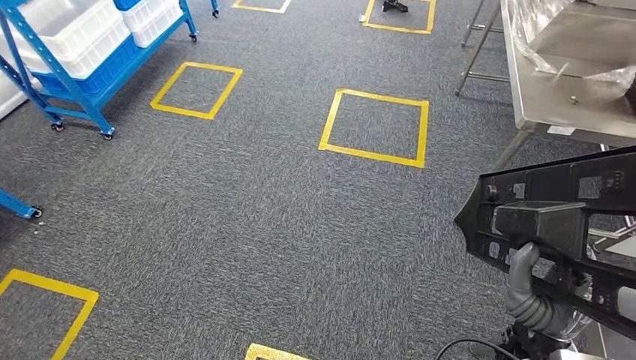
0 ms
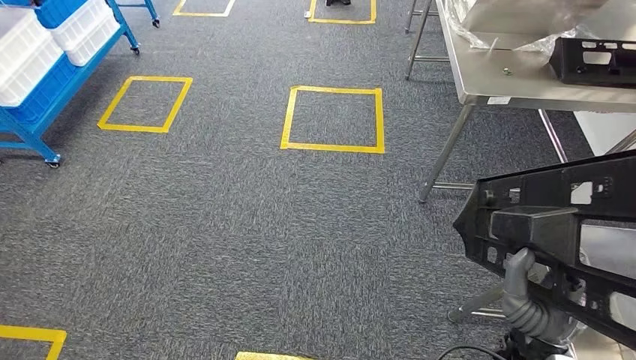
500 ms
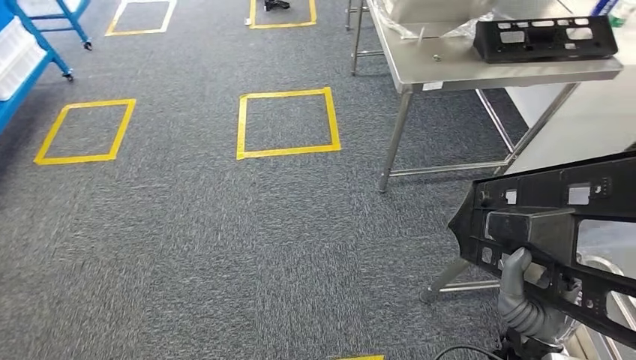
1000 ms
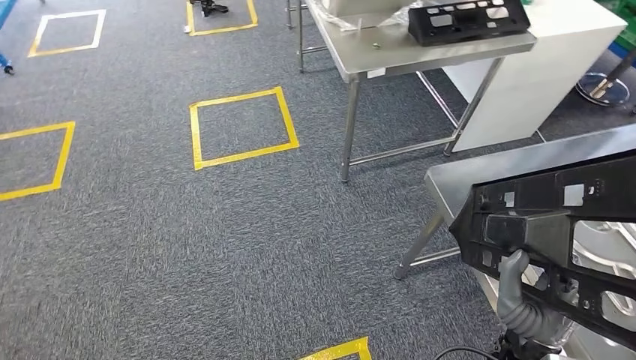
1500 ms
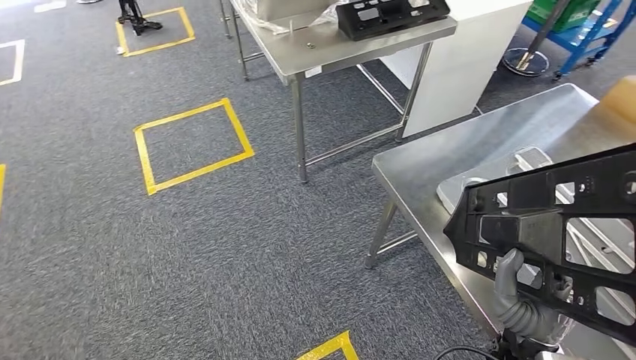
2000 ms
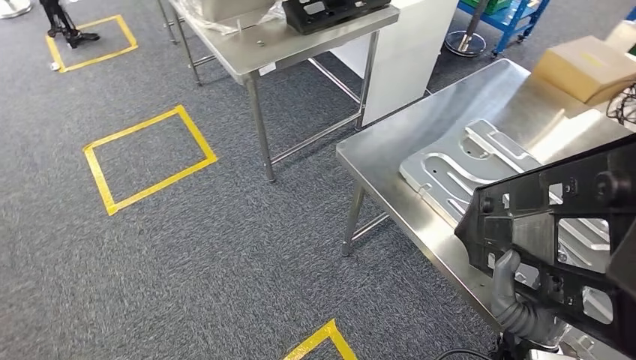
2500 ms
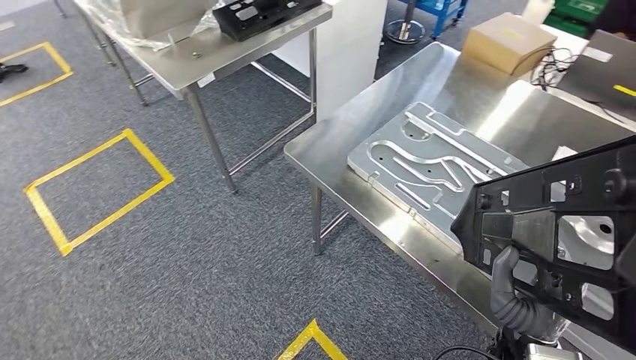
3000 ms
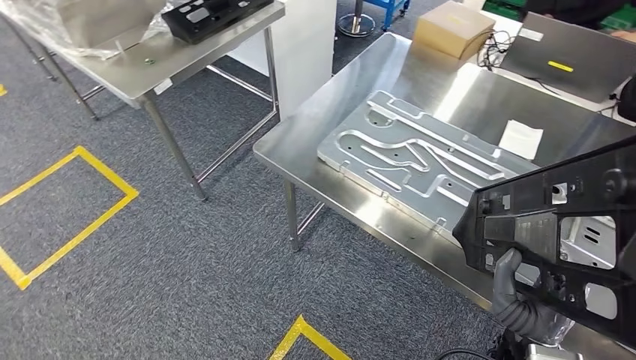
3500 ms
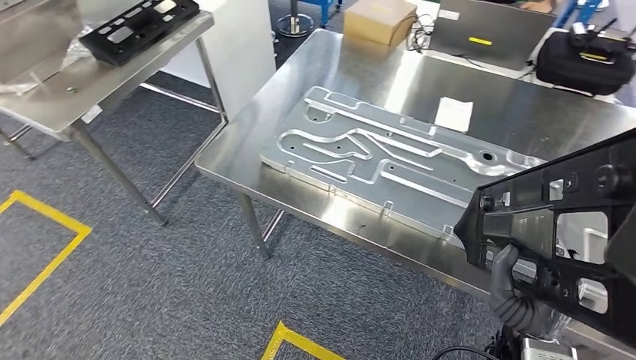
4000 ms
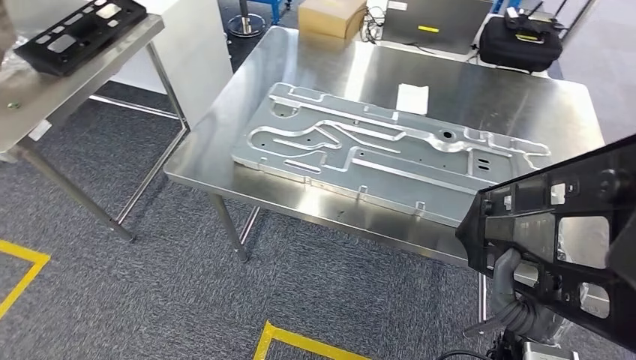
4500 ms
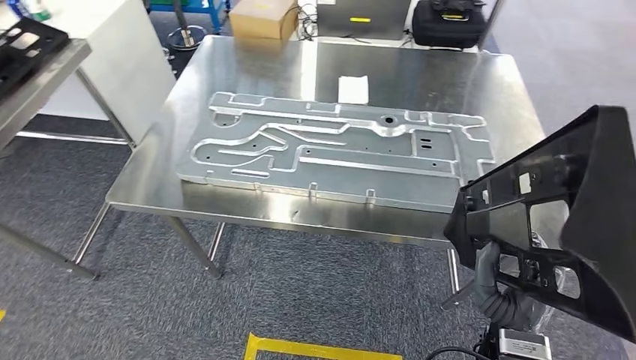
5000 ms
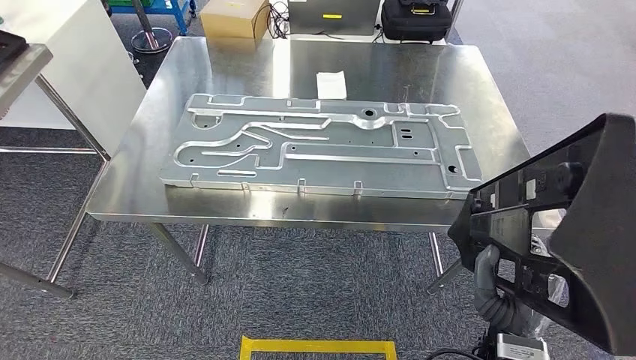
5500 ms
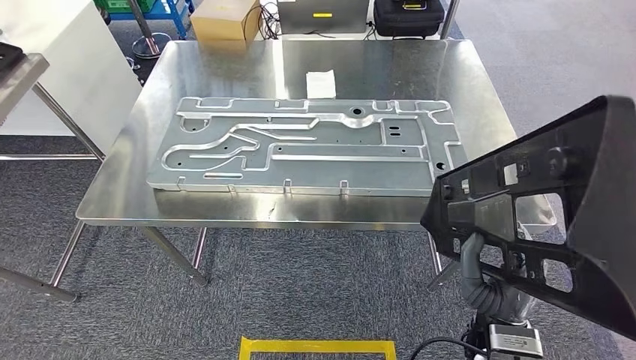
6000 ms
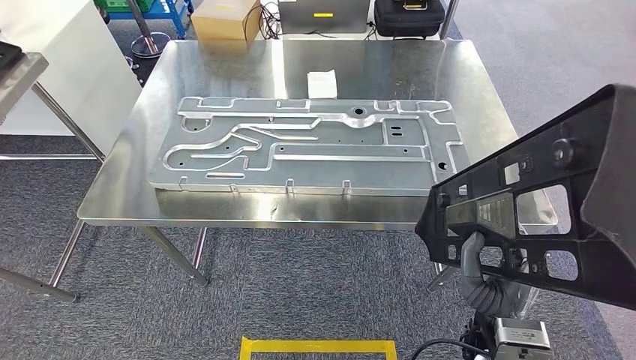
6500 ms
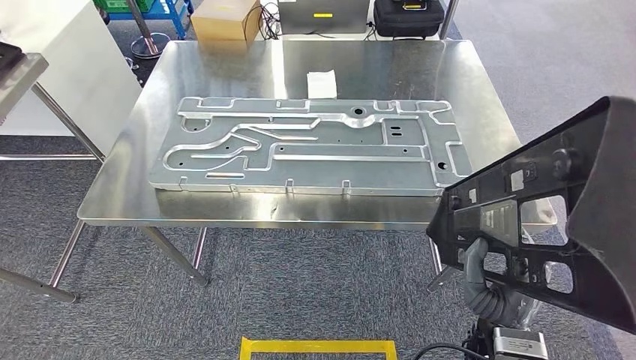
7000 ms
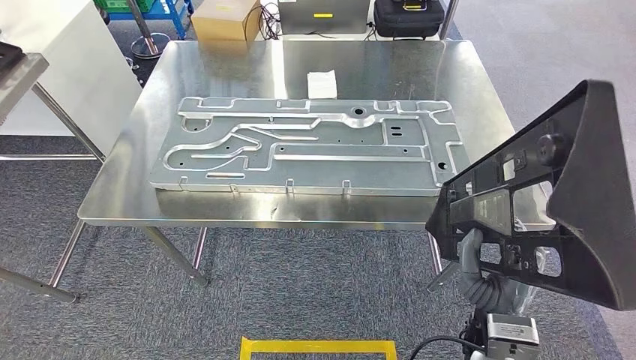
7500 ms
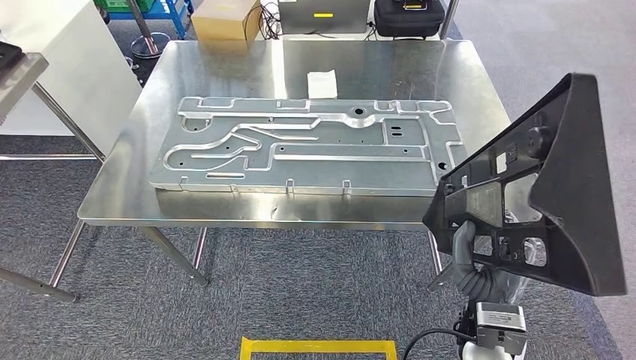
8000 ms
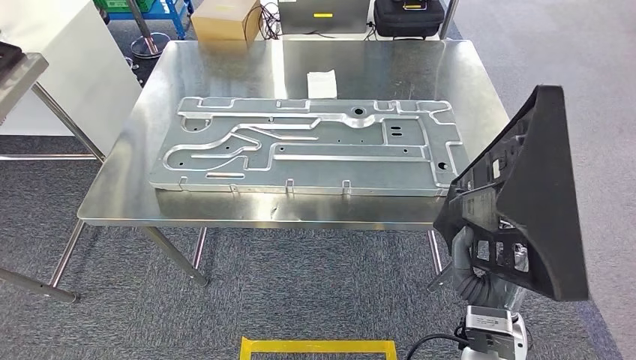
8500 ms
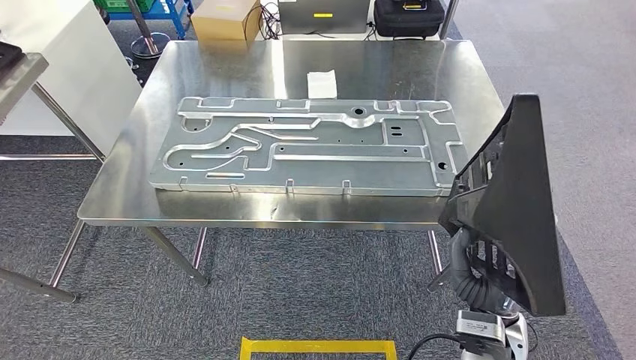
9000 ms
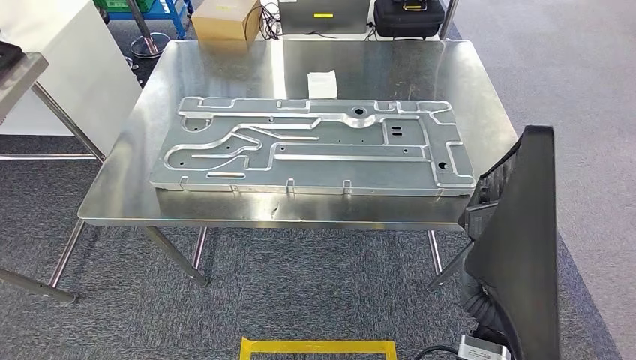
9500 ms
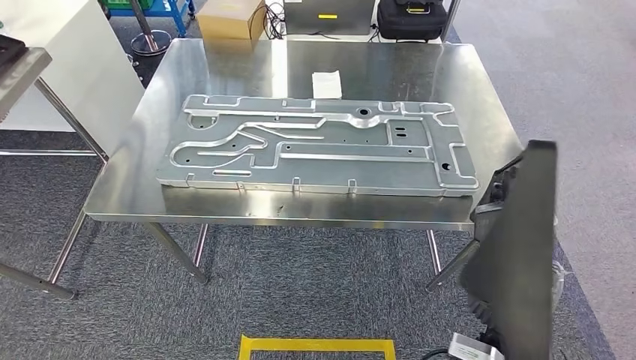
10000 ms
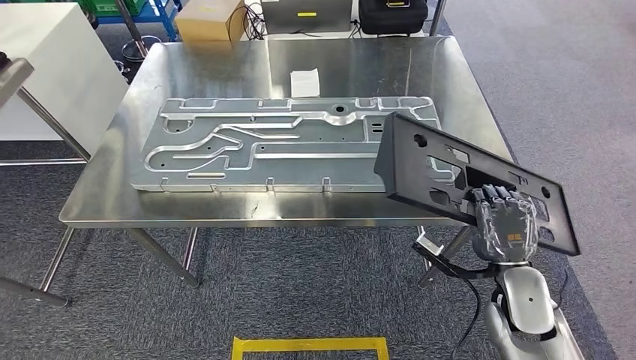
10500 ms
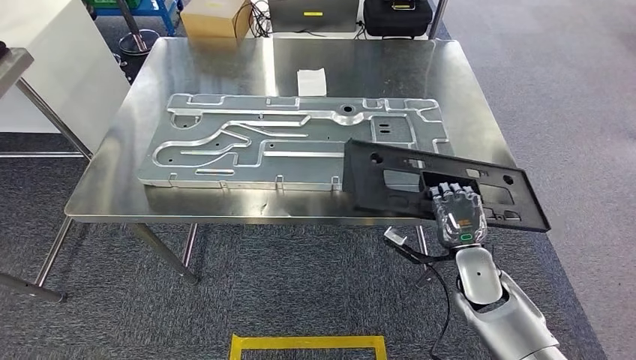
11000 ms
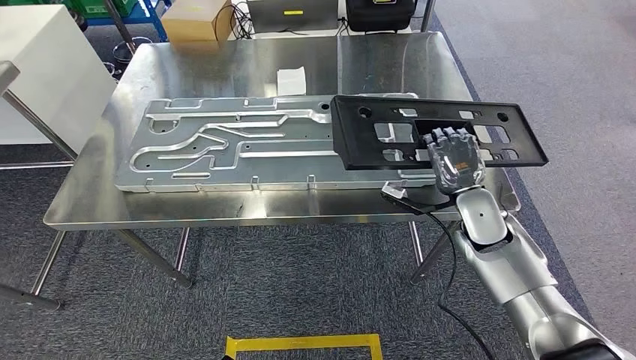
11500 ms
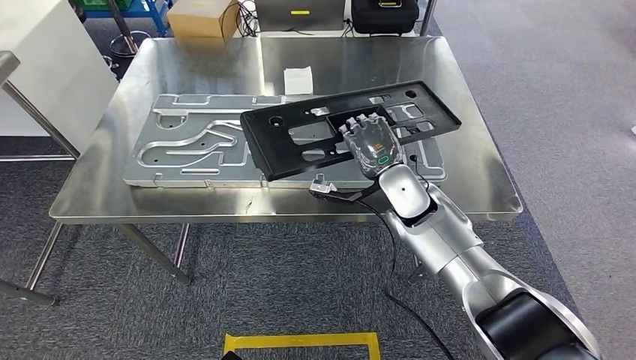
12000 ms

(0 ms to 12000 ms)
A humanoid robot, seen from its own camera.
Step, 0 ms - 6000 ms: Move the large material to the workbench.
6000 ms - 8000 ms: The hands stay close to where they were, moving slightly.

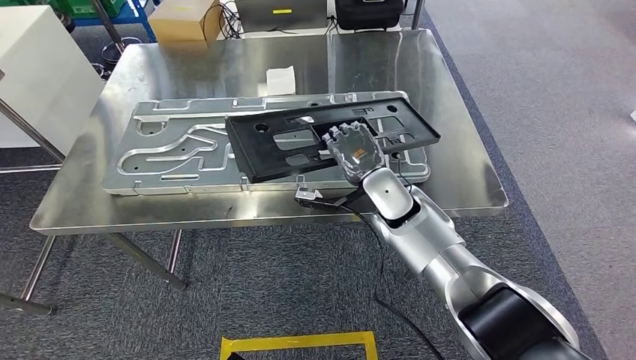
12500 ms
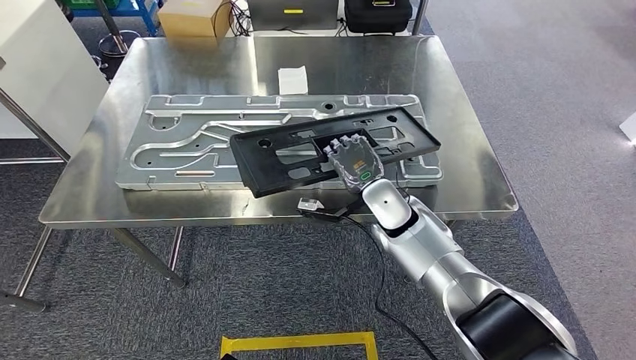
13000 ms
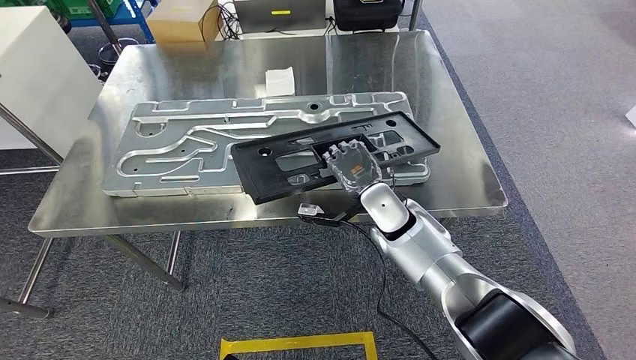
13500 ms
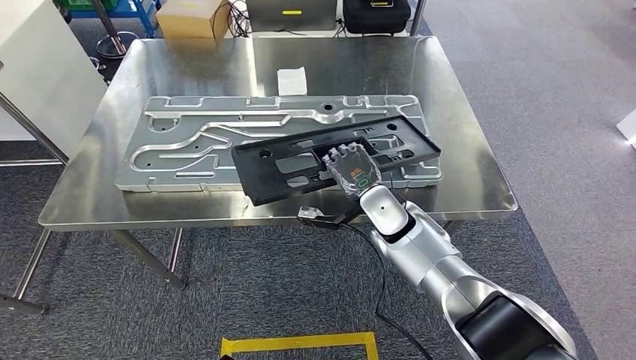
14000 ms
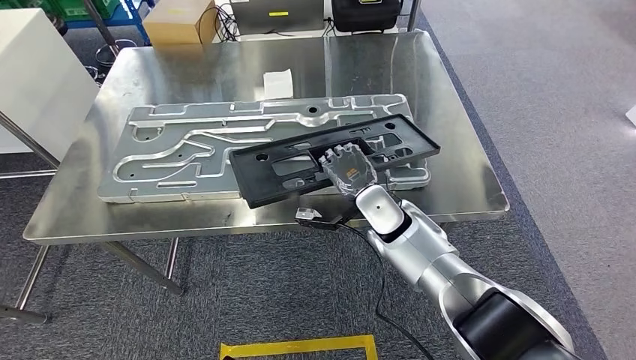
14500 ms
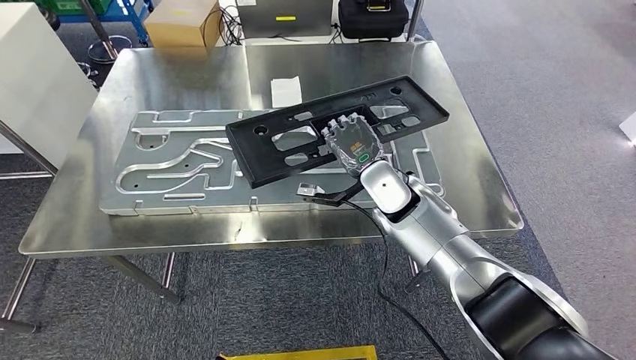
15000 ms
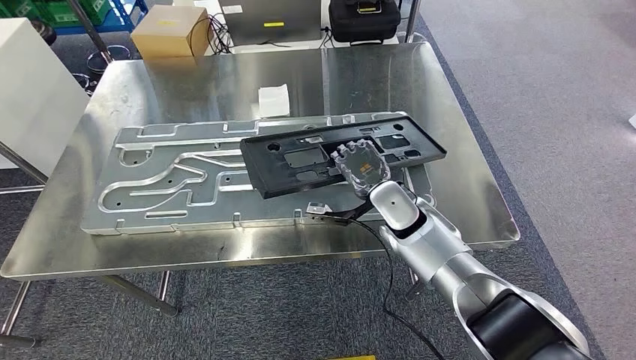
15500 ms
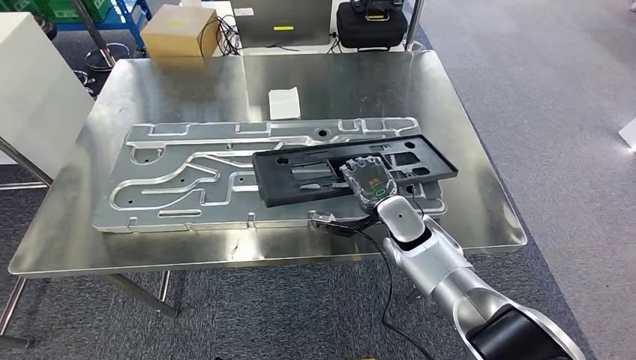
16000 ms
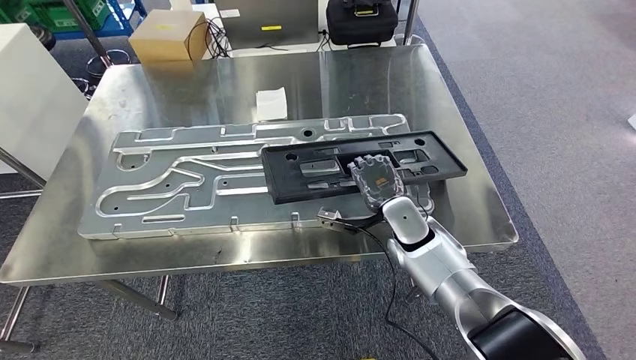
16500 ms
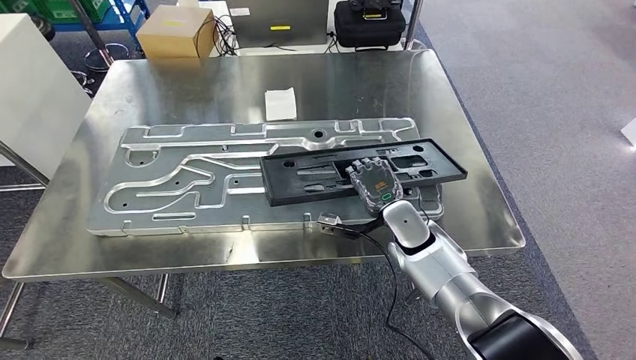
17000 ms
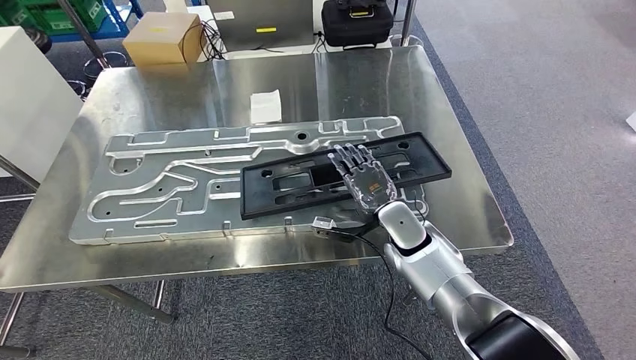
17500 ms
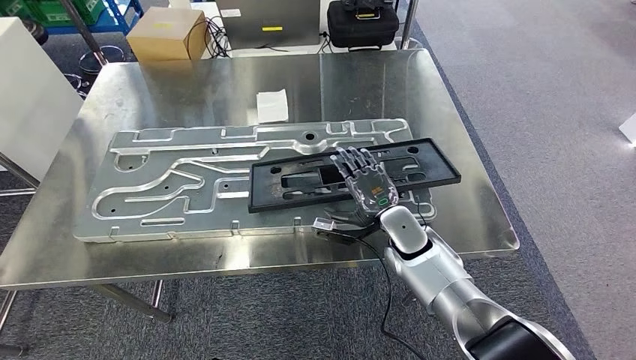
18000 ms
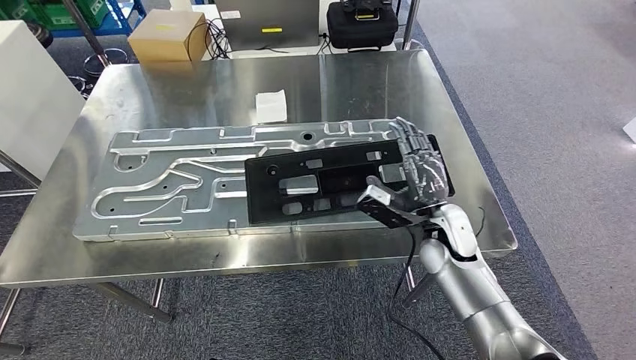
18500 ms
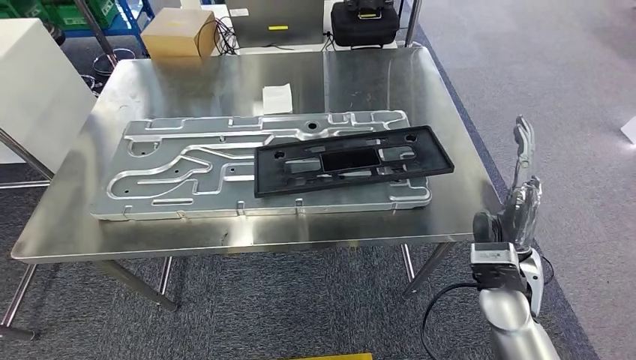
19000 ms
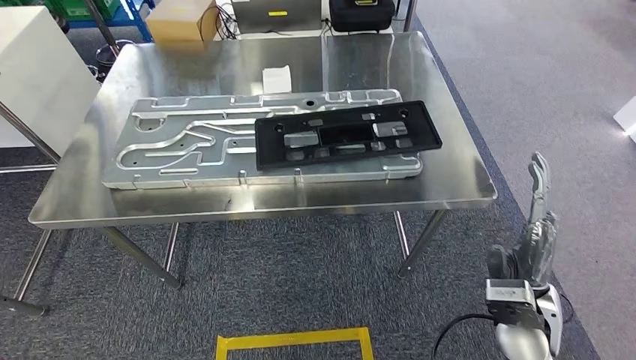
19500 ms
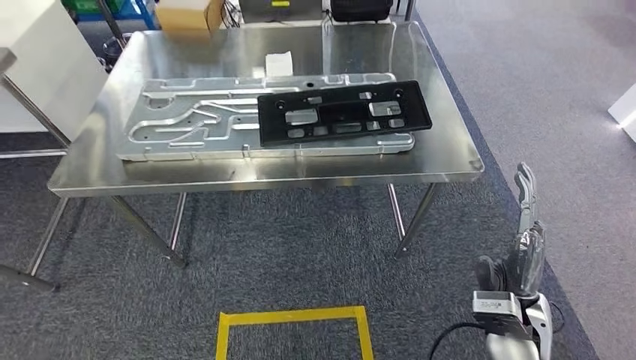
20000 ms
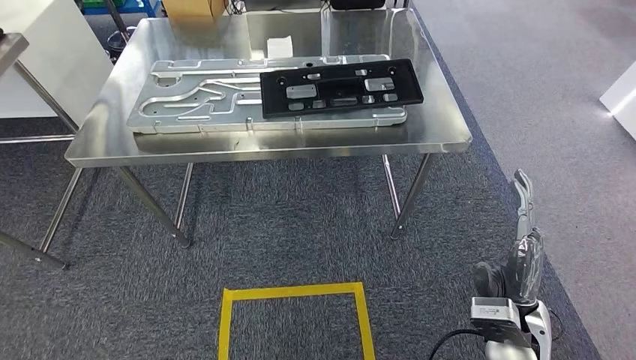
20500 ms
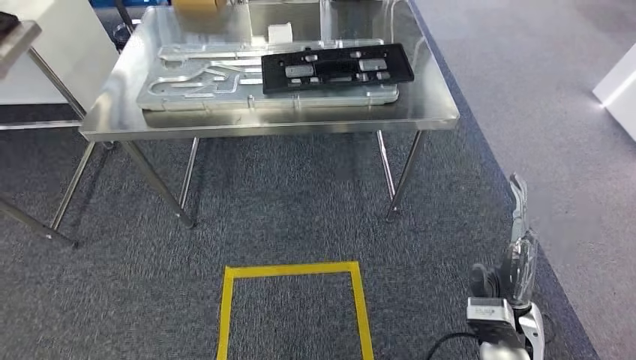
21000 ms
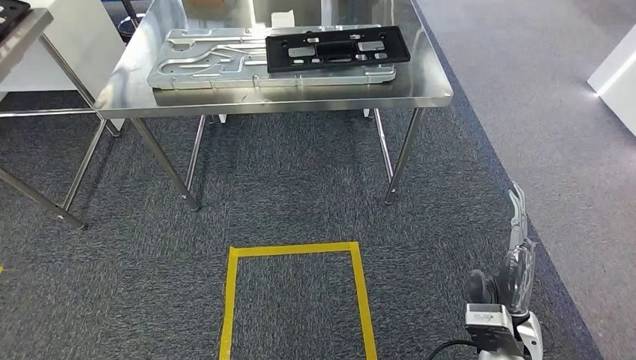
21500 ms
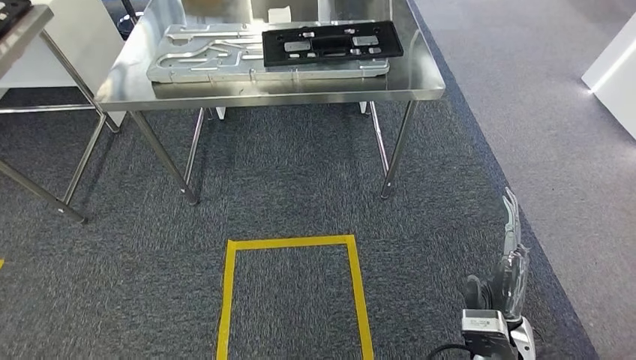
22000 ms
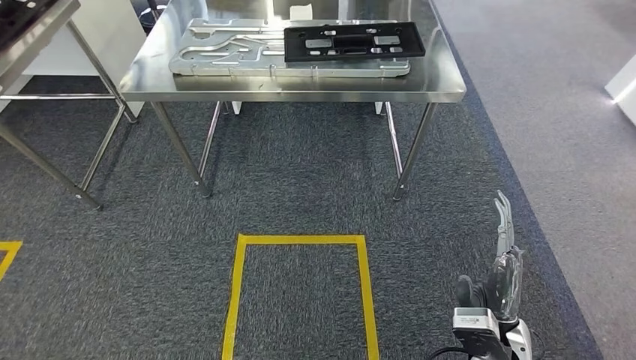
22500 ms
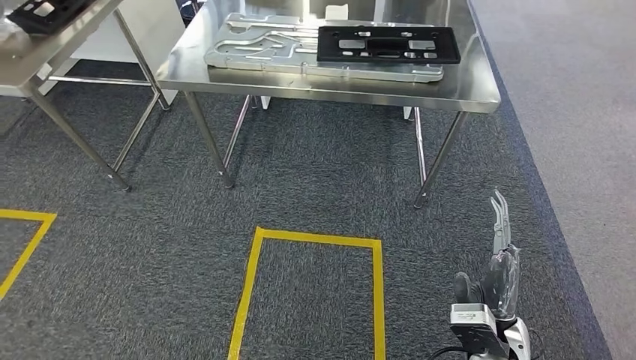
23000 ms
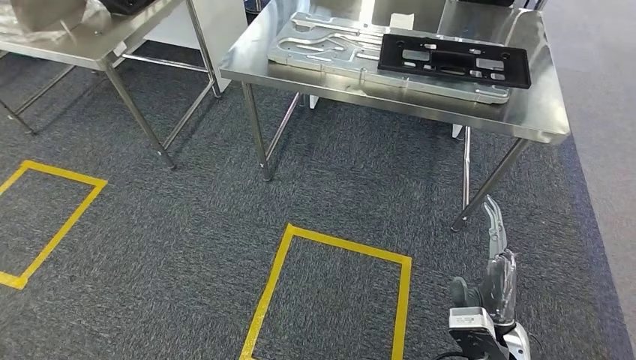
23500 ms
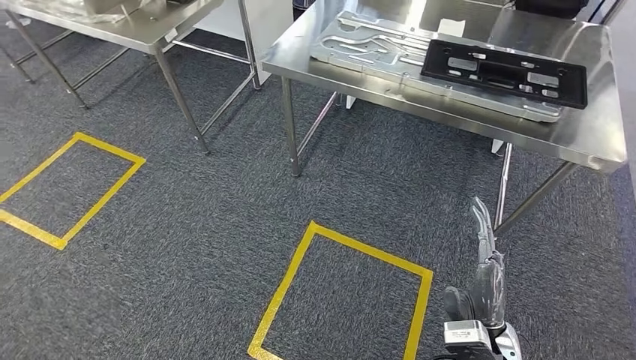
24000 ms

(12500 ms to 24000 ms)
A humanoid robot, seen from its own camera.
Step, 12500 ms - 22000 ms: Insert the large material into the corresponding slot on the workbench.
